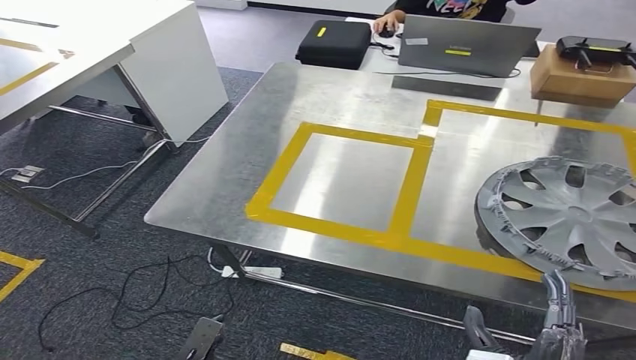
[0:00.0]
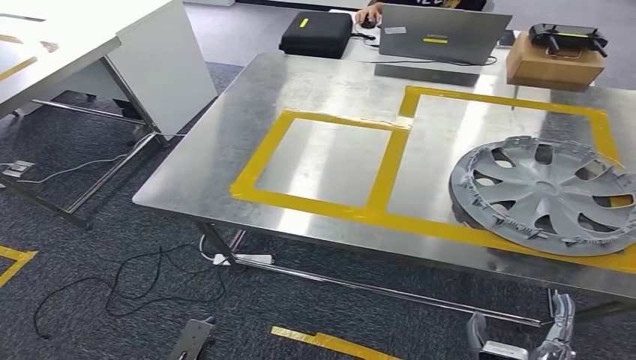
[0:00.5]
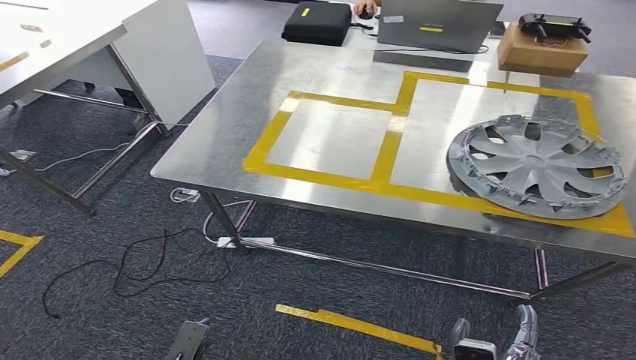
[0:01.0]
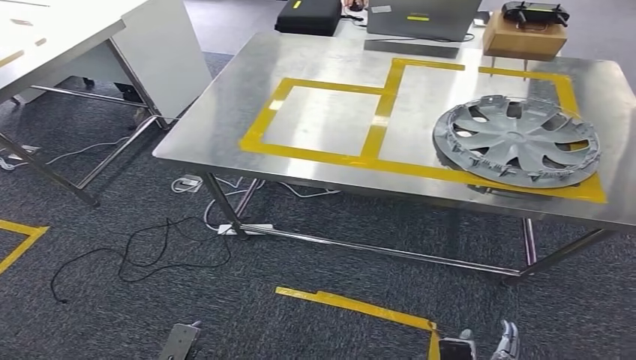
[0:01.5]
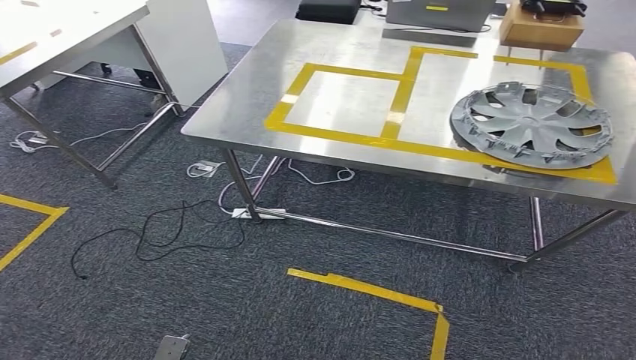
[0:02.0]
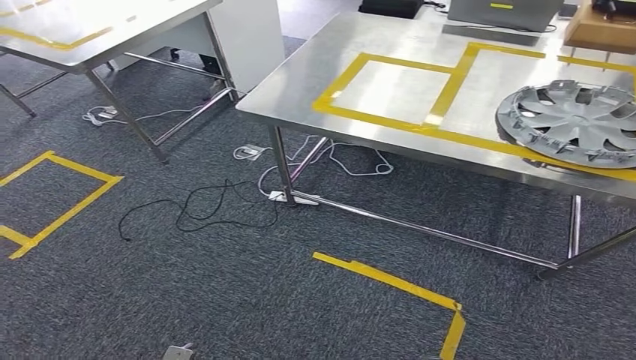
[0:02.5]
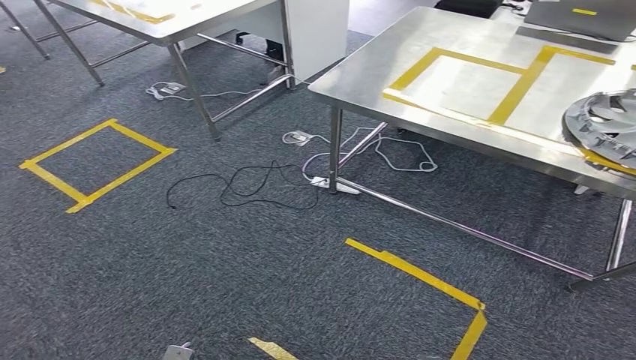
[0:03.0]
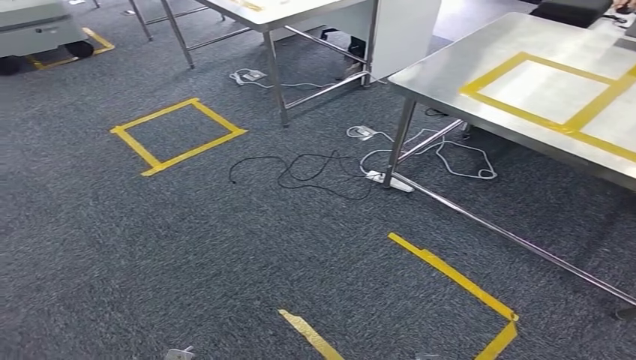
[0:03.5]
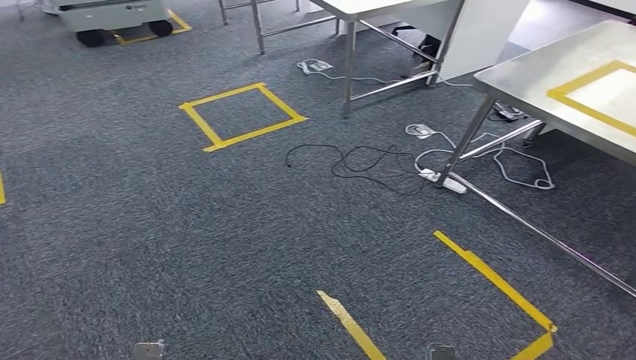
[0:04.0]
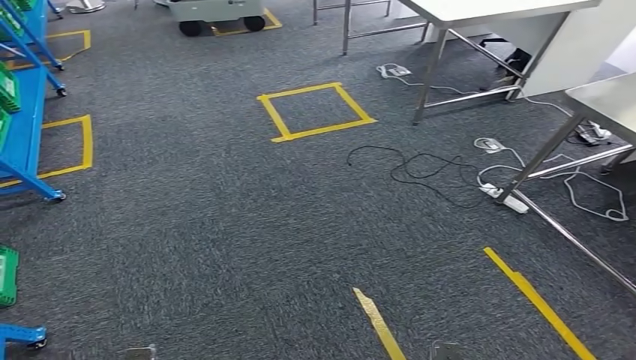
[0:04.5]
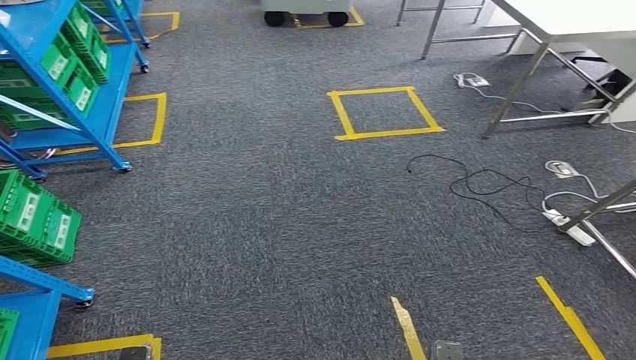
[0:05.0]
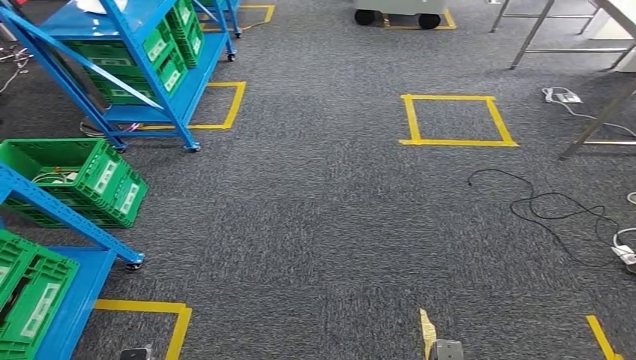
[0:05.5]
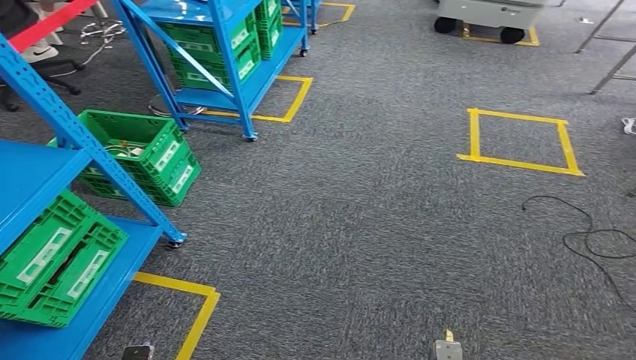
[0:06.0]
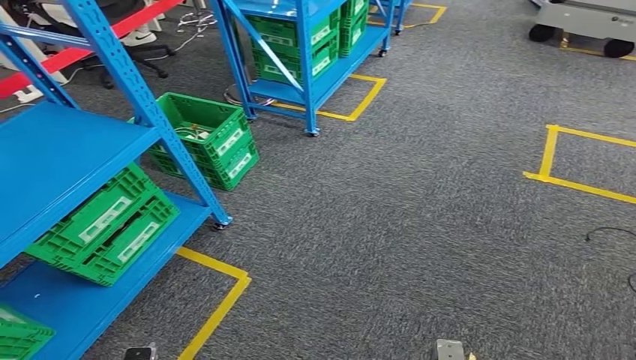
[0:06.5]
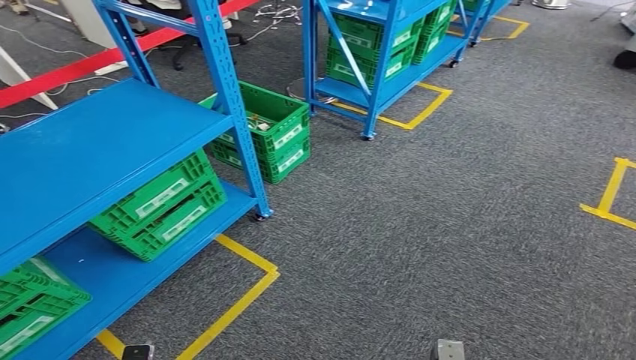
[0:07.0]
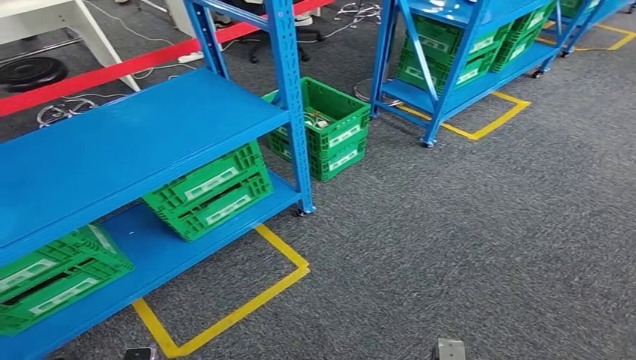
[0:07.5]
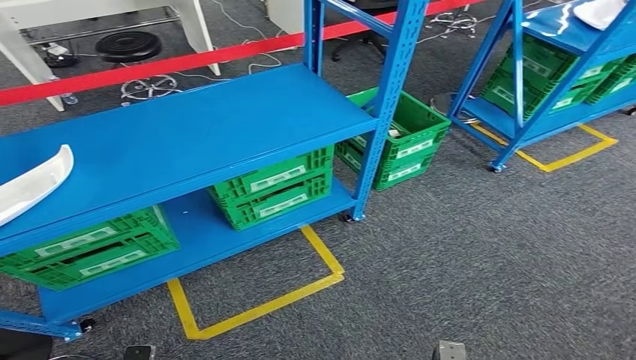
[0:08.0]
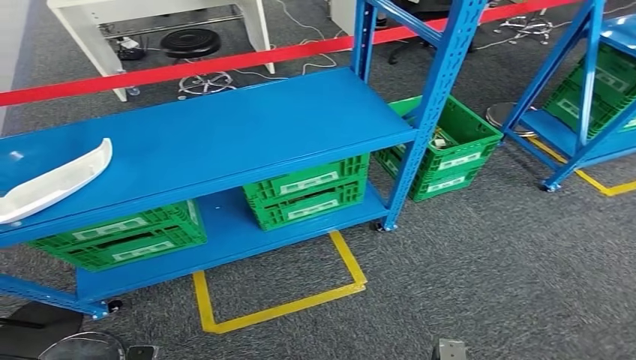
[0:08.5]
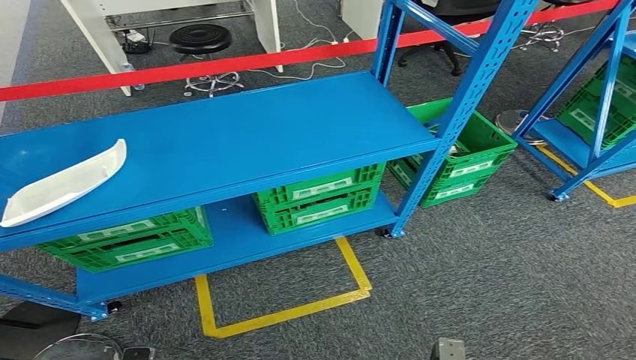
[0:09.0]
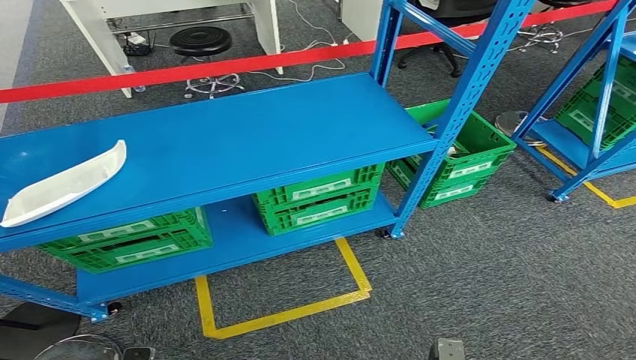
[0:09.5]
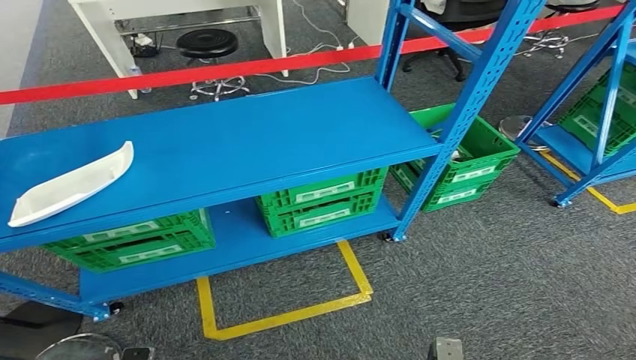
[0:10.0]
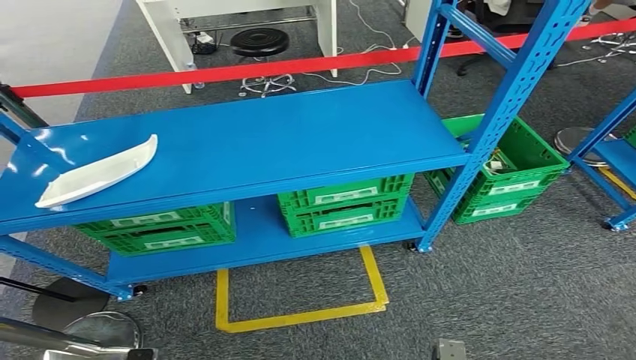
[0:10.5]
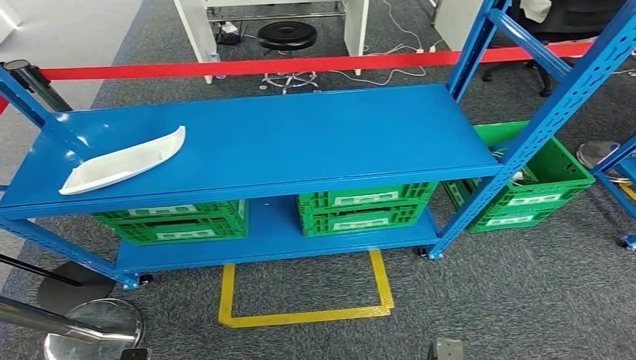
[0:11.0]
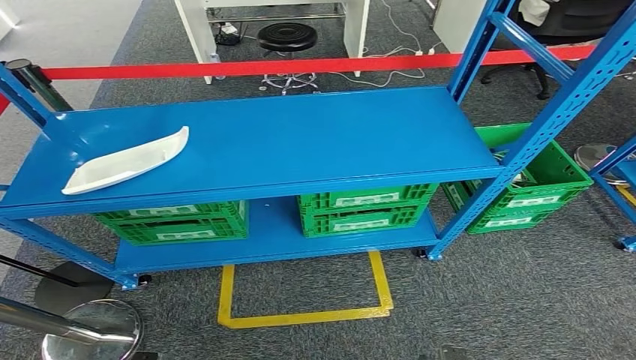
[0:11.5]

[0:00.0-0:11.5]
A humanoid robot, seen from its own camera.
Step, 0:02.0 to 0:11.5: Return to the initial position at the workbench.
